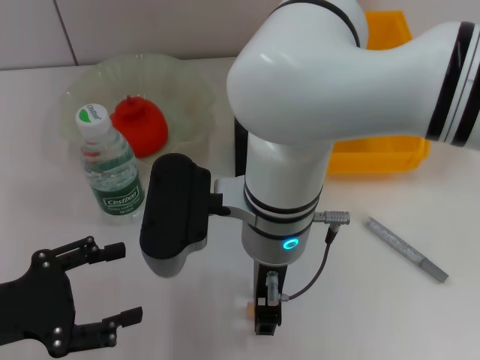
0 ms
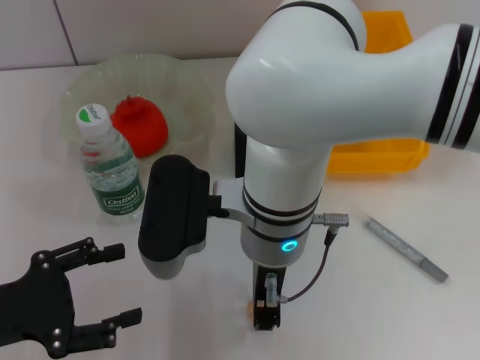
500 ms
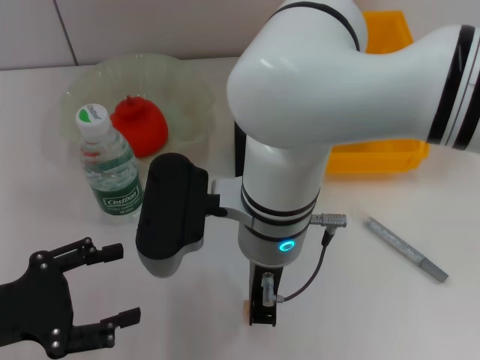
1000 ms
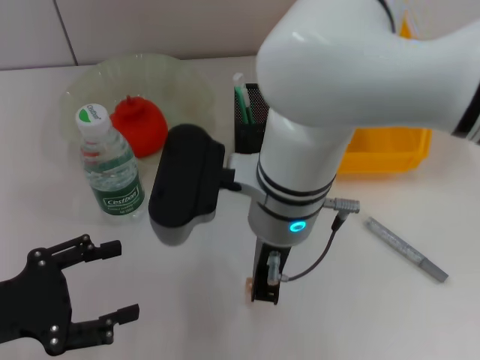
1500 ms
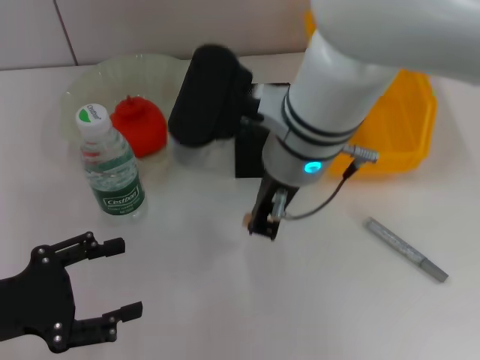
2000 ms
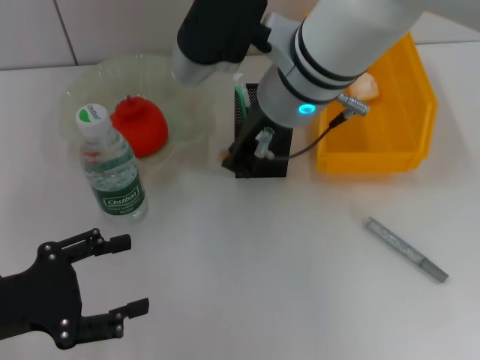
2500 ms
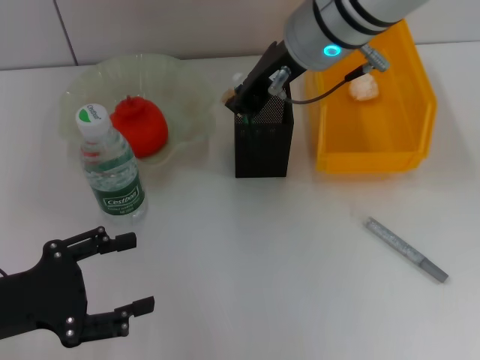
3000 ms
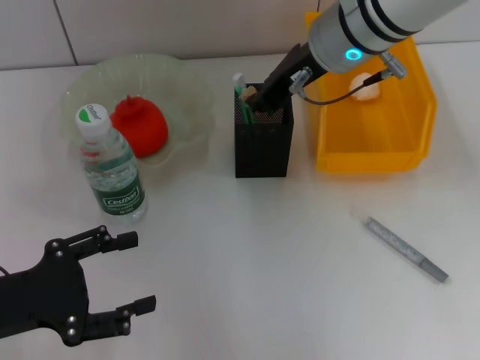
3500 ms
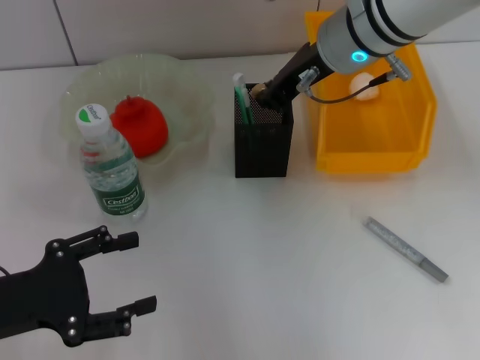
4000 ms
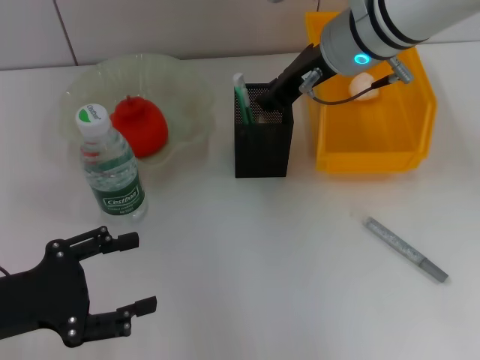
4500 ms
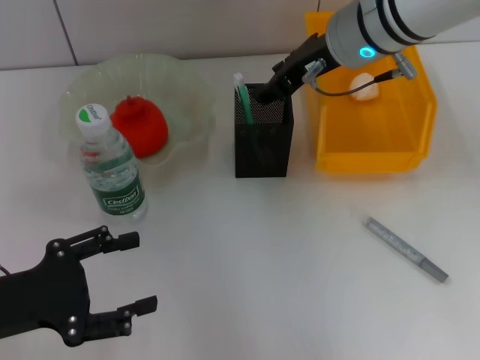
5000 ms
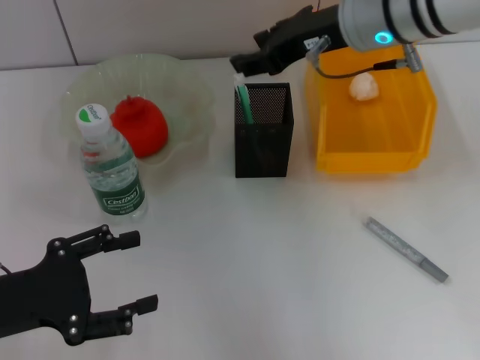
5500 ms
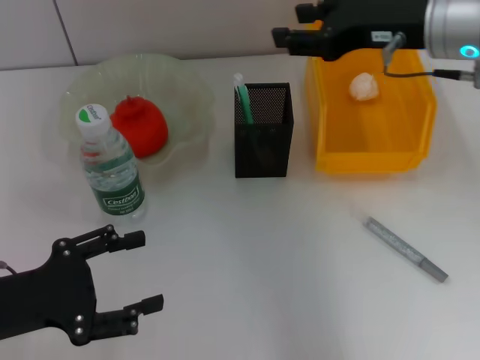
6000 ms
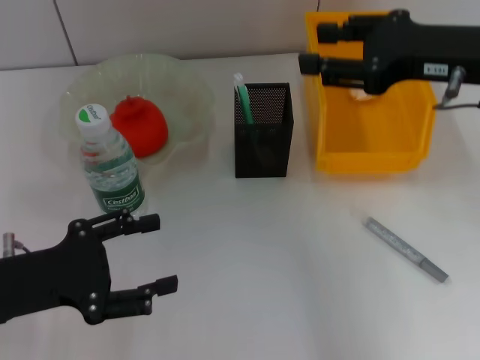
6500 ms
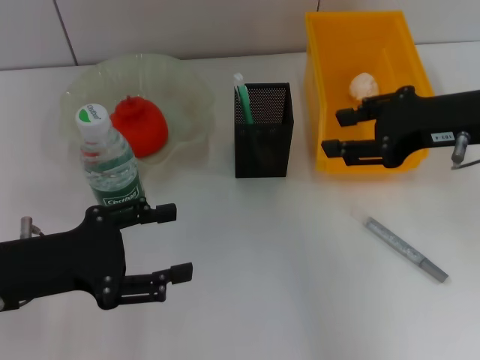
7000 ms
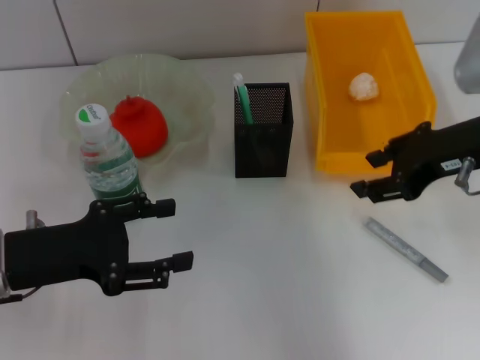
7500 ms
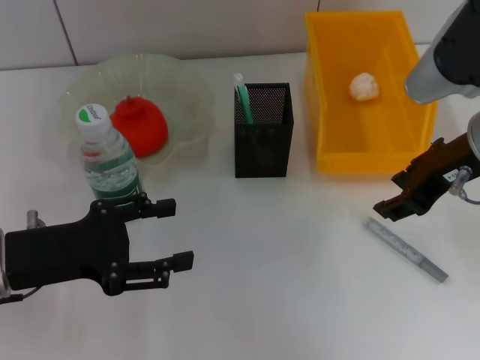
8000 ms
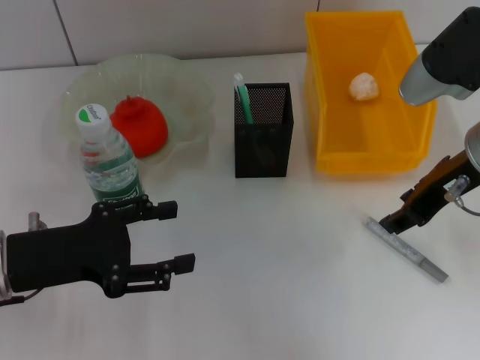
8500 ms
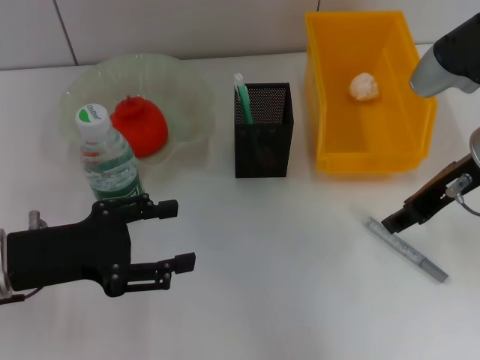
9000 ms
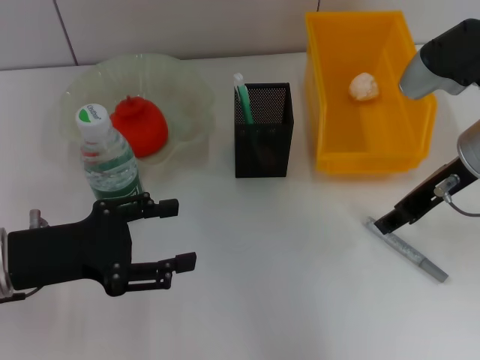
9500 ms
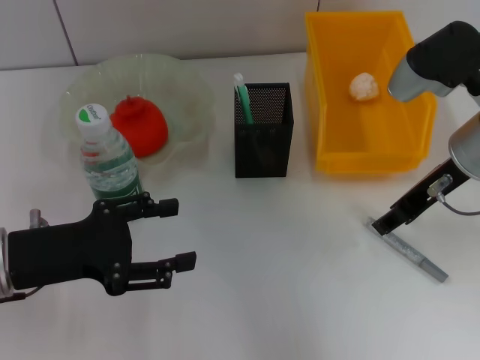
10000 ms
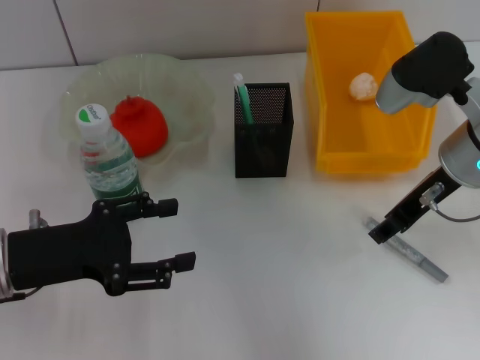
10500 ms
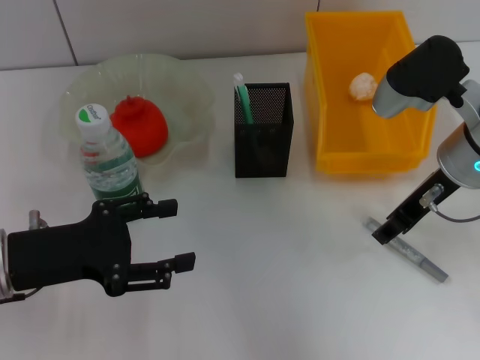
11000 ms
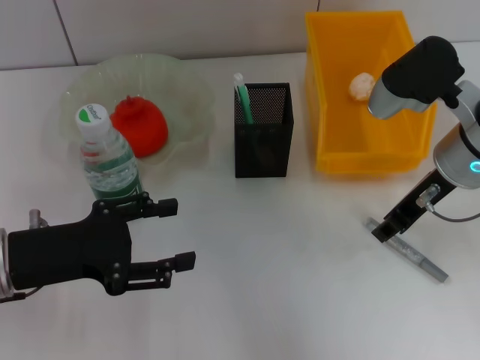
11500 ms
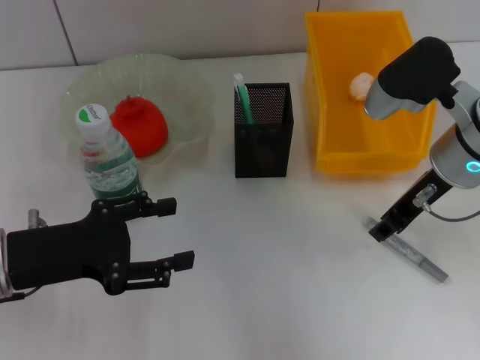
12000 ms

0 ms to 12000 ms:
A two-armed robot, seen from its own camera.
Step, 1000 ms to 5000 ms: Put the eraser into the pen holder with the right hand.
0 ms to 2000 ms: The right gripper moves approximately 5 cm, and closes up.
2000 ms to 4000 ms: The right gripper shifts some 10 cm forward and to the right.
4000 ms to 6000 ms: The right gripper shifts approximately 10 cm to the right, and opens.
6000 ms to 8000 ms: The right gripper goes approximately 5 cm backward; the left gripper moves approximately 5 cm.
8000 ms to 12000 ms: There are only small adjustments of the grippers.

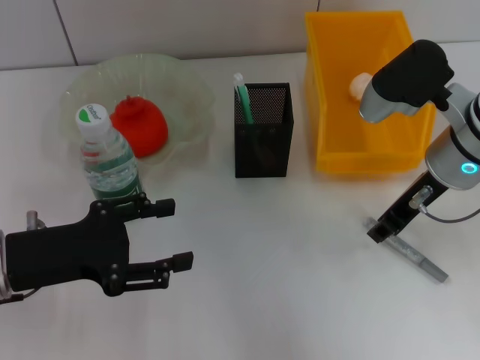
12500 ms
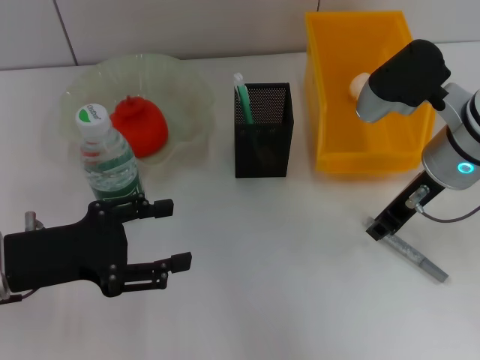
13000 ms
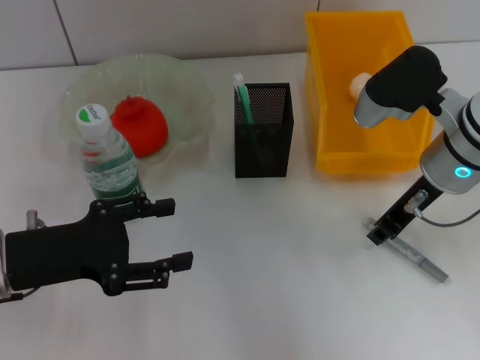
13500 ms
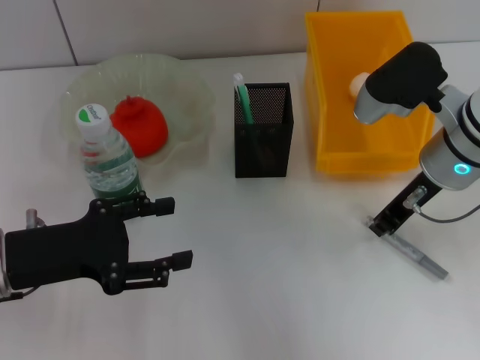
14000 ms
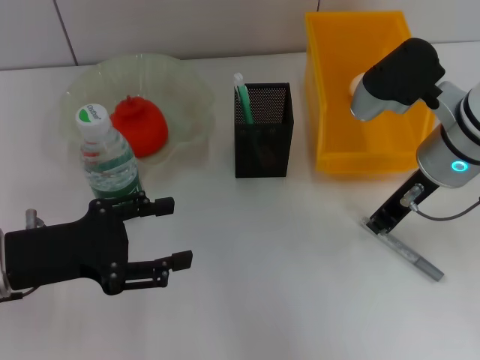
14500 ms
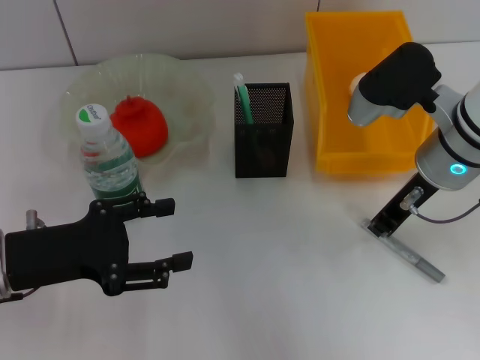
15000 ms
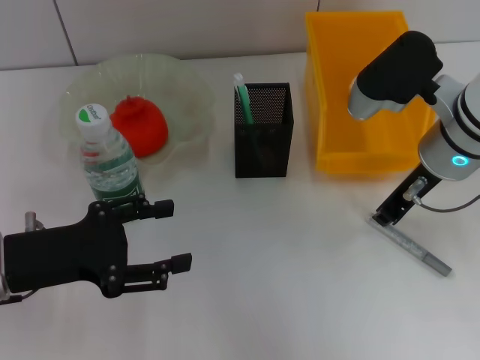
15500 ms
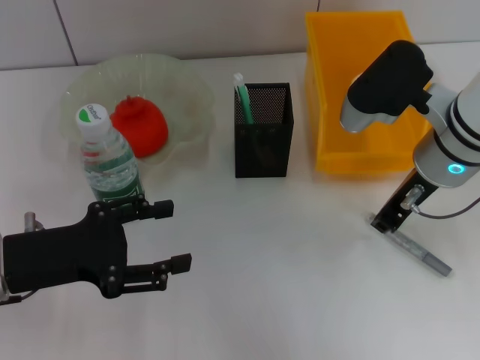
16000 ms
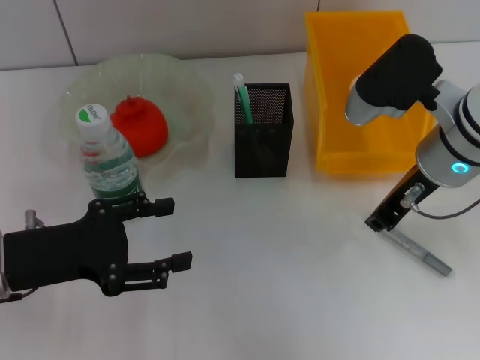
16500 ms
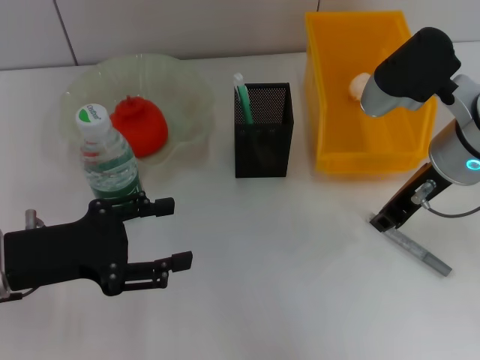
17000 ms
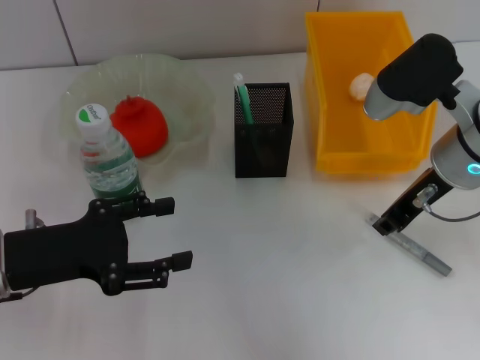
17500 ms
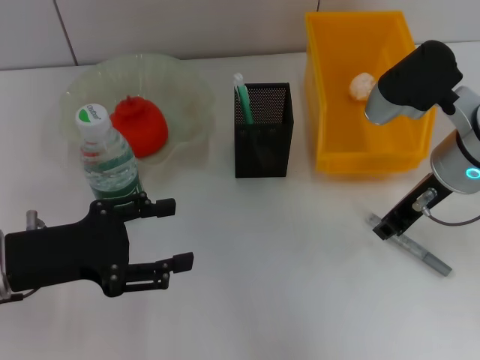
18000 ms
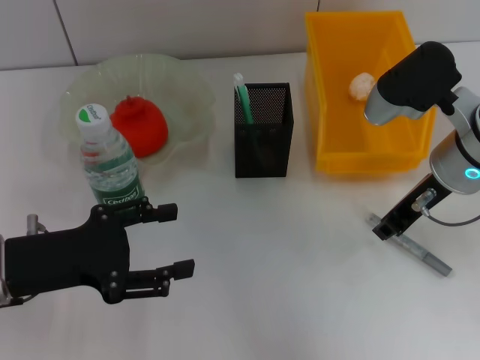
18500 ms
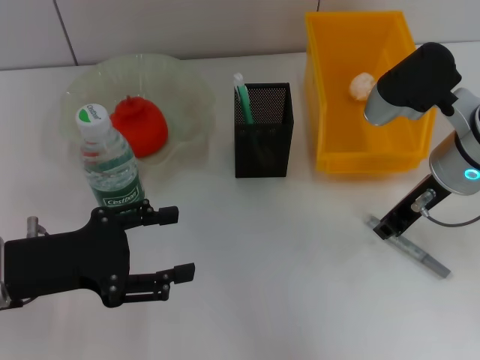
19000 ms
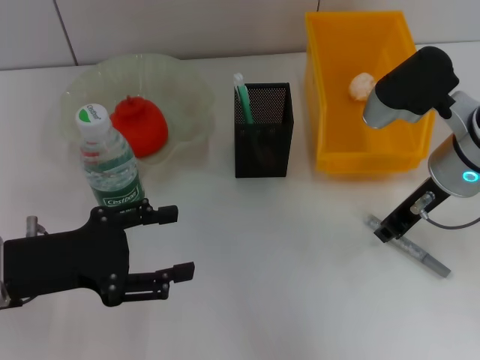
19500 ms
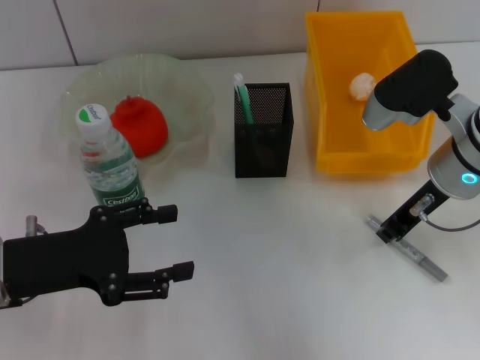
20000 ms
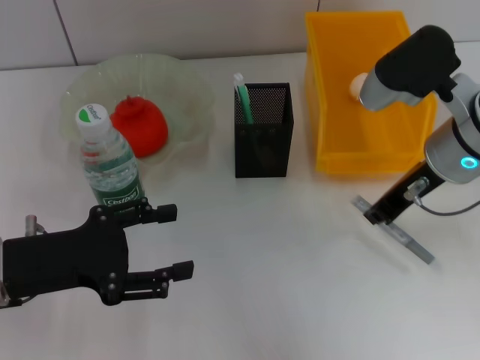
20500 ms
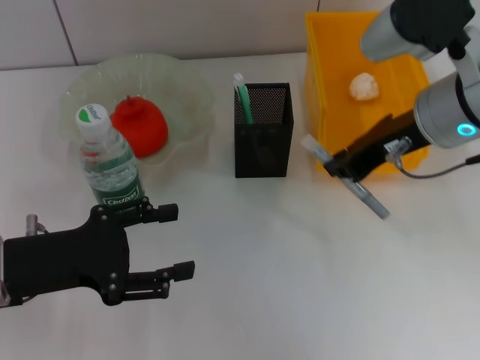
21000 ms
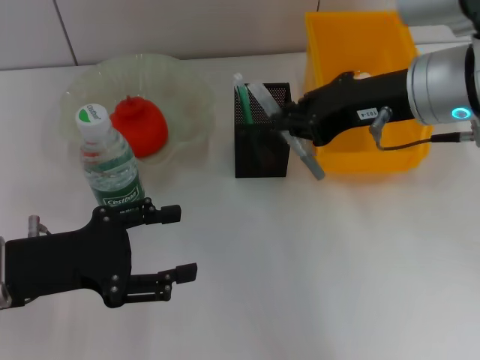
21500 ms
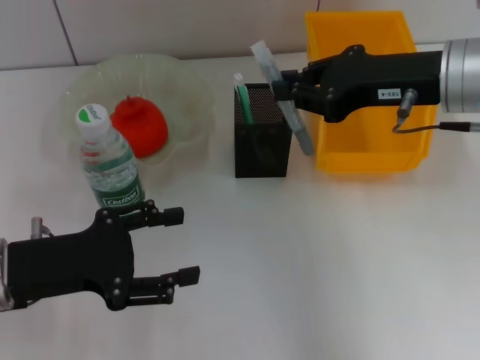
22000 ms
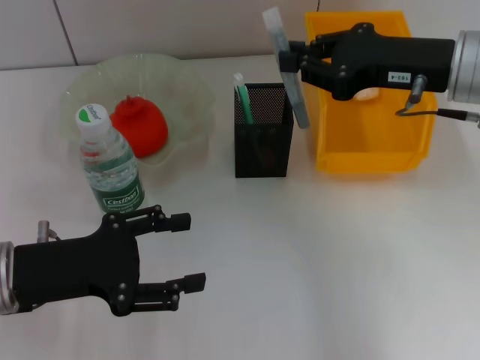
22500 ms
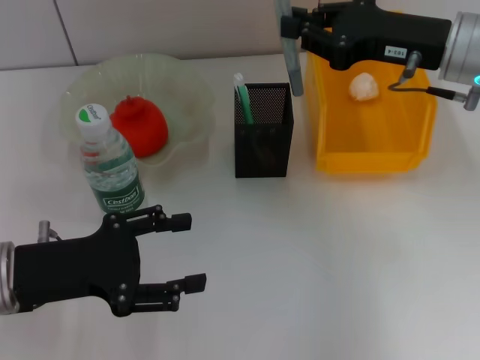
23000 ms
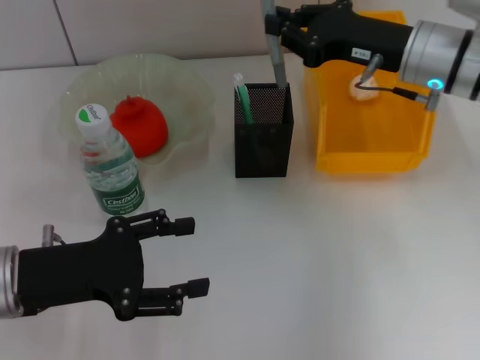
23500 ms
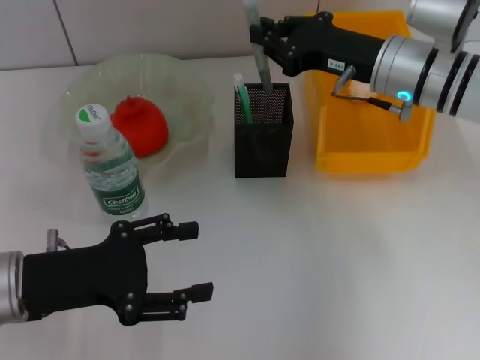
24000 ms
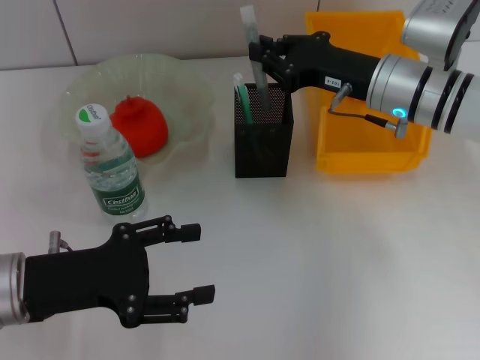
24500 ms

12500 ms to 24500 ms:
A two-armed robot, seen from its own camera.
Step, 12500 ms to 19000 ms: Grab the gray glue with the right hand.
12500 ms to 14500 ms: The right gripper closes.
14500 ms to 20500 ms: The grippers stay close to where they were, moving slightly.
22500 ms to 24500 ms: The right gripper moves downward, approximately 5 cm.

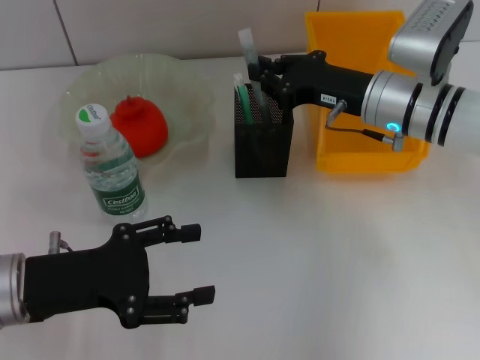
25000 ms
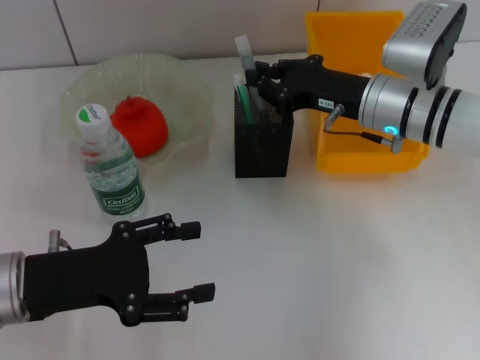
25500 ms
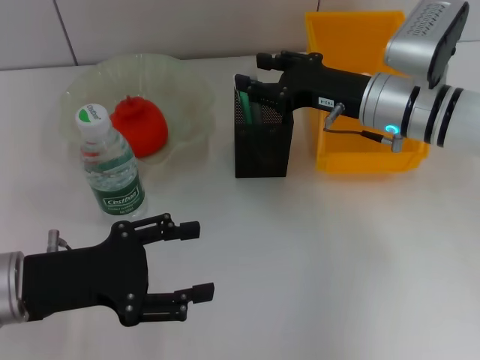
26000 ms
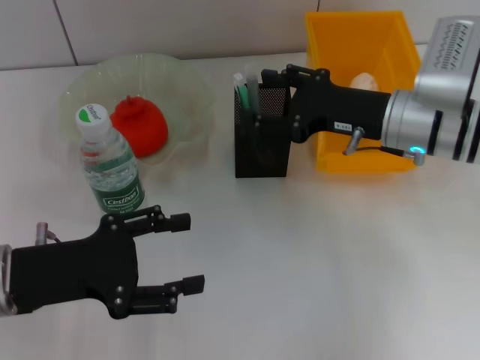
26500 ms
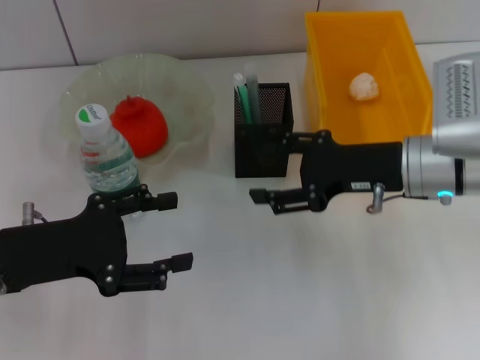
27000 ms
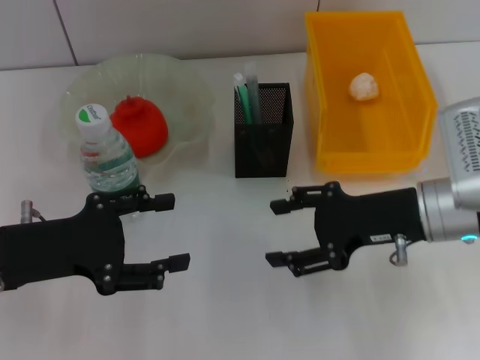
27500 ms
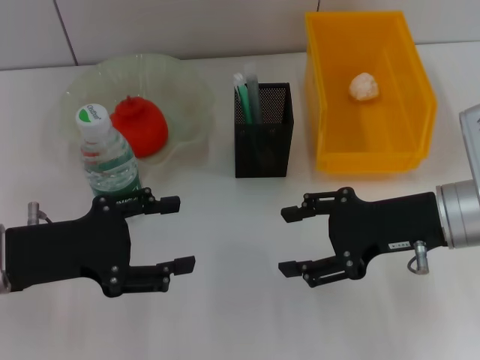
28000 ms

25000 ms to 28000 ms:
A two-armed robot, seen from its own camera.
25000 ms to 26500 ms: The right gripper opens.
26500 ms to 28000 ms: The right gripper shifts some 10 cm backward.
